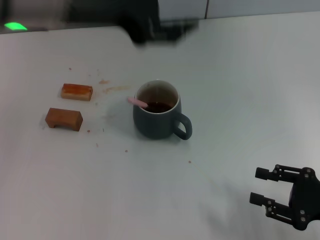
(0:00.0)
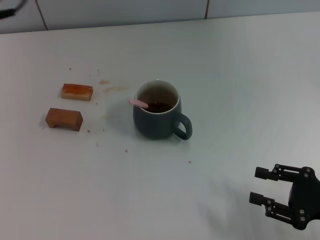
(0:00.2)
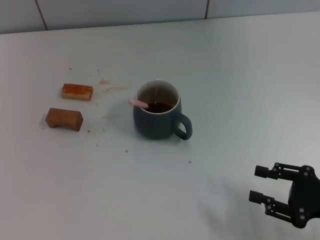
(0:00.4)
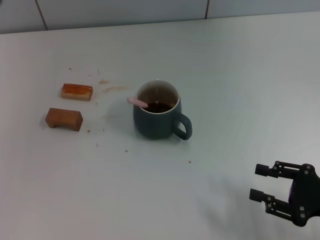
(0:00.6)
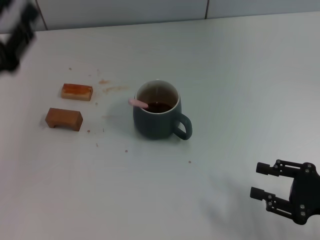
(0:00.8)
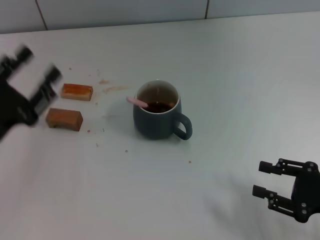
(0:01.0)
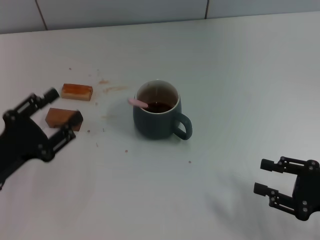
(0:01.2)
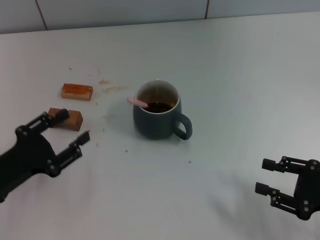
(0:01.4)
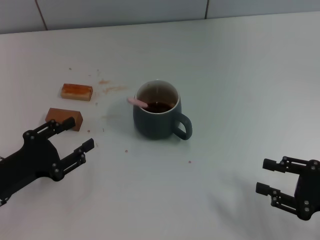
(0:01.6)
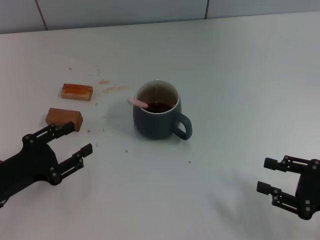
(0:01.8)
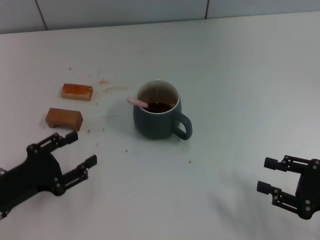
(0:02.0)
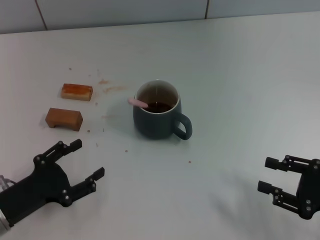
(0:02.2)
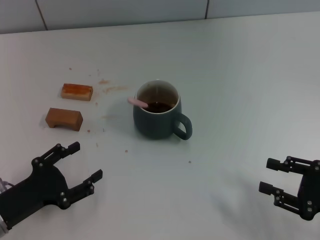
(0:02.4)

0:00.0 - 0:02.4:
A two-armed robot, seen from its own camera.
Task of the whole recording: Move the grey cup to the center, lift the pink spoon, stir it three times in the cup, and put the spoon into the cup.
0:00.0 - 0:01.2: The left gripper is displaced downward and to the left by about 30 cm.
0:01.2 - 0:02.4: There are only small adjustments of the grippers.
